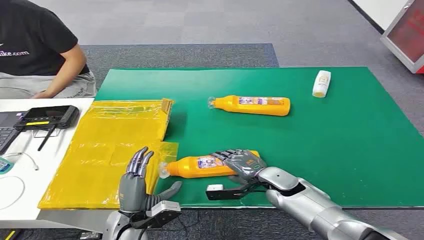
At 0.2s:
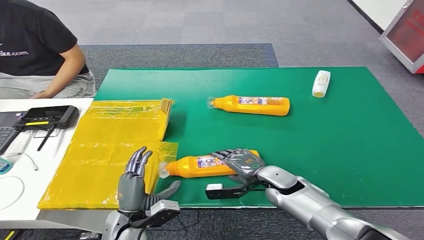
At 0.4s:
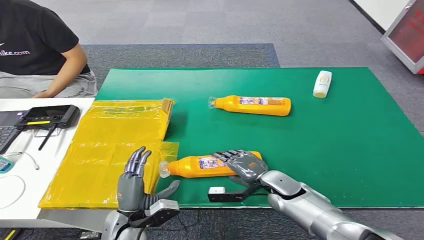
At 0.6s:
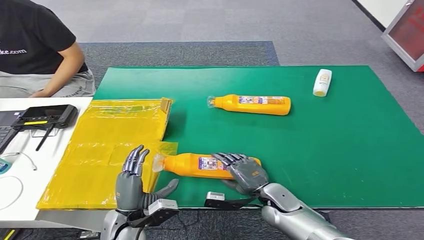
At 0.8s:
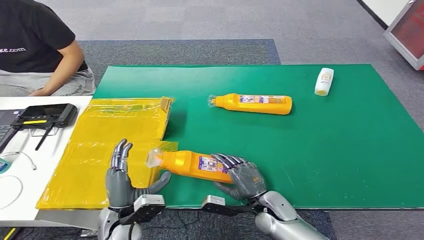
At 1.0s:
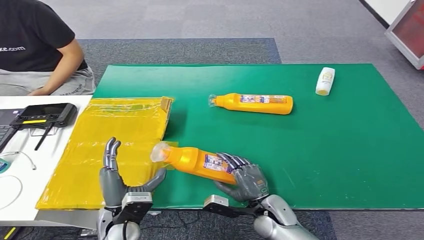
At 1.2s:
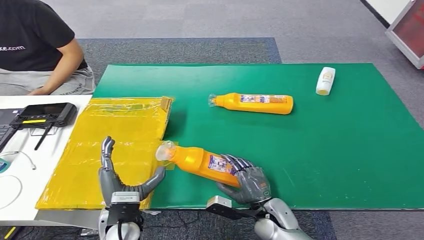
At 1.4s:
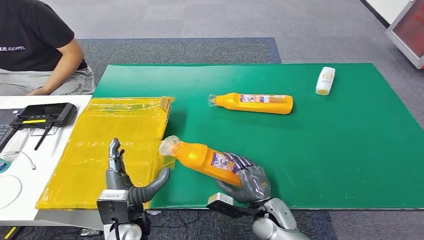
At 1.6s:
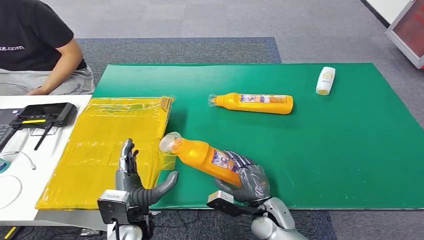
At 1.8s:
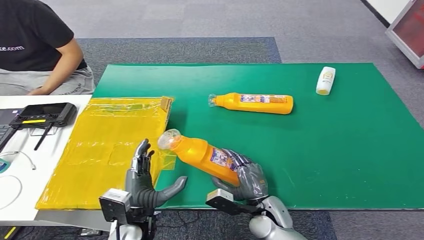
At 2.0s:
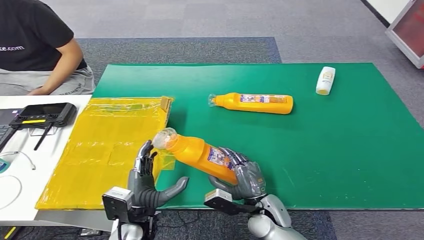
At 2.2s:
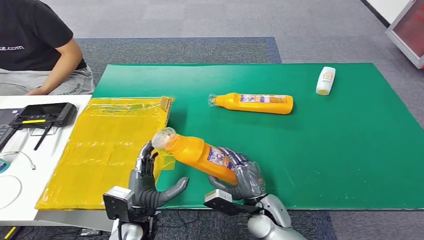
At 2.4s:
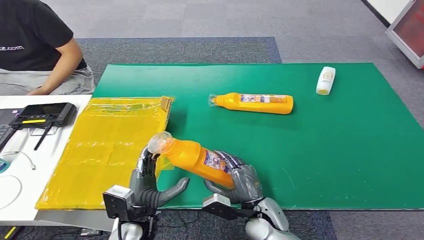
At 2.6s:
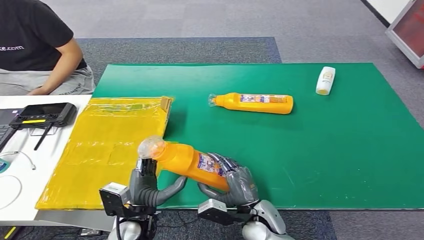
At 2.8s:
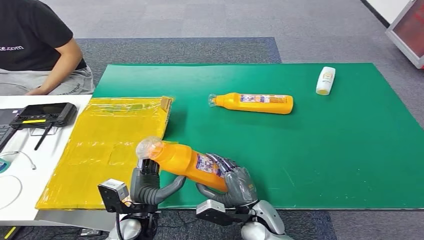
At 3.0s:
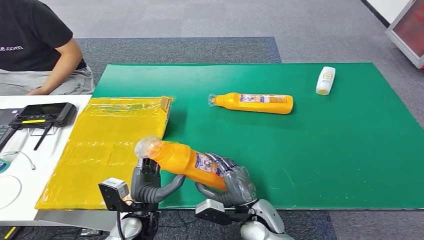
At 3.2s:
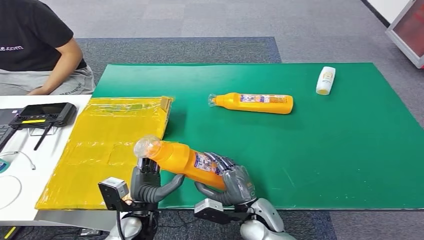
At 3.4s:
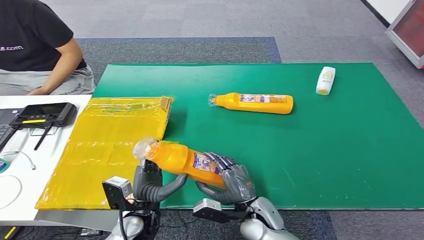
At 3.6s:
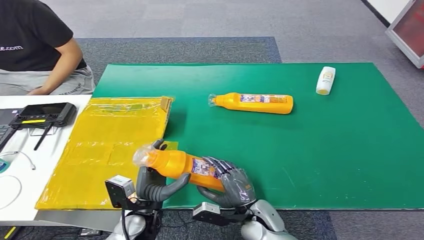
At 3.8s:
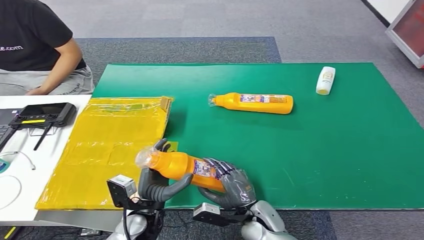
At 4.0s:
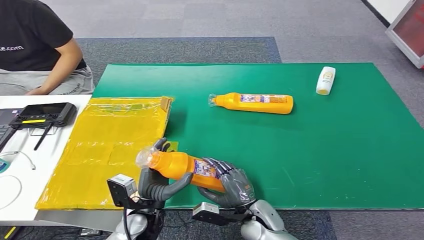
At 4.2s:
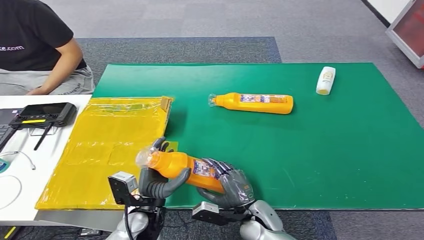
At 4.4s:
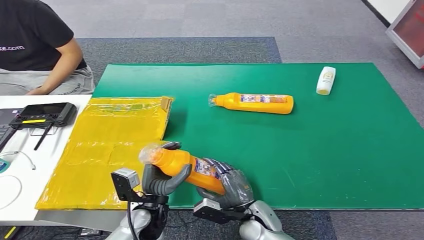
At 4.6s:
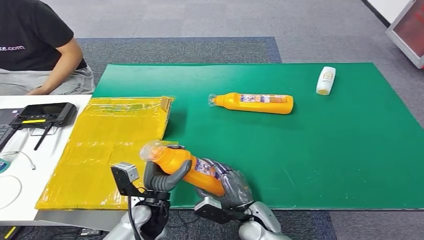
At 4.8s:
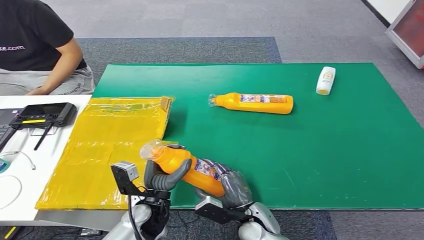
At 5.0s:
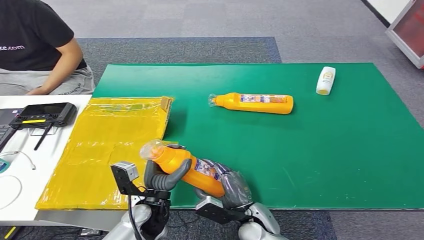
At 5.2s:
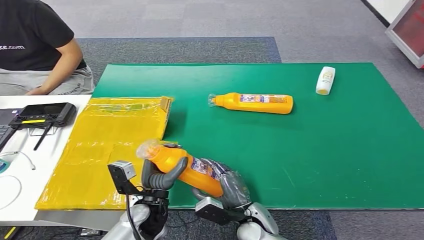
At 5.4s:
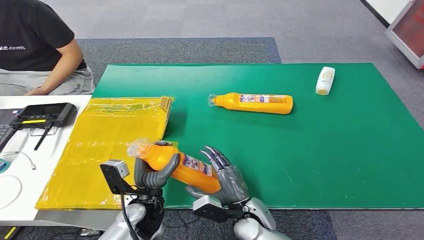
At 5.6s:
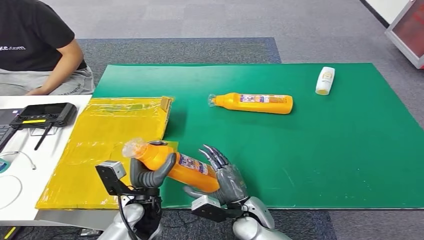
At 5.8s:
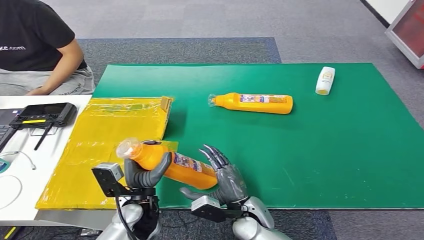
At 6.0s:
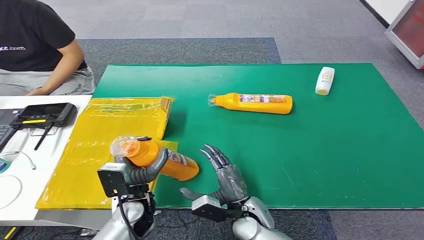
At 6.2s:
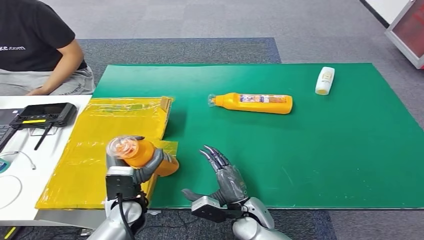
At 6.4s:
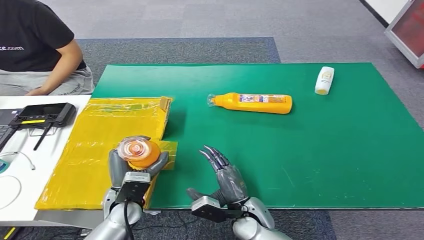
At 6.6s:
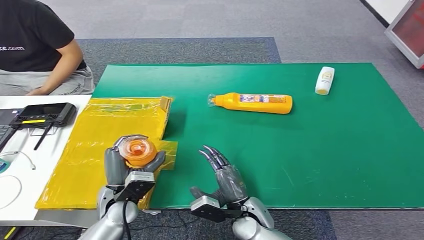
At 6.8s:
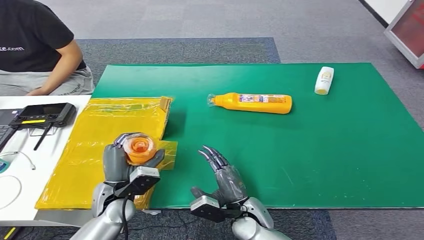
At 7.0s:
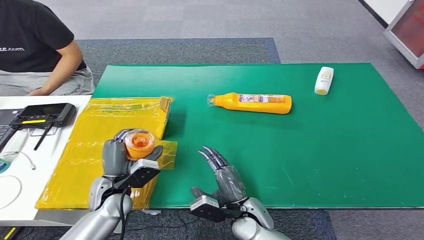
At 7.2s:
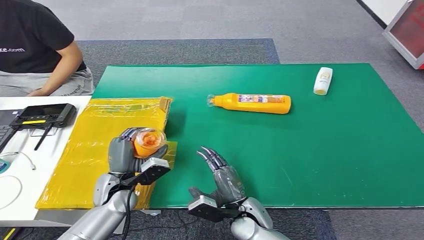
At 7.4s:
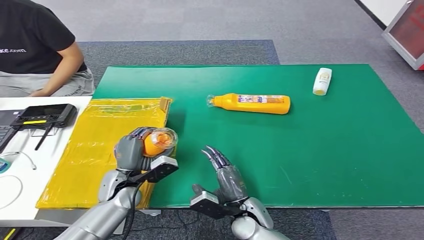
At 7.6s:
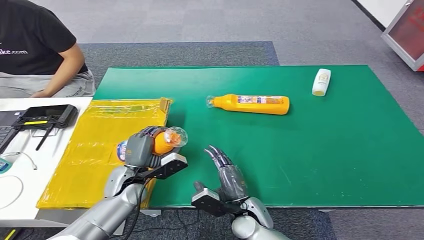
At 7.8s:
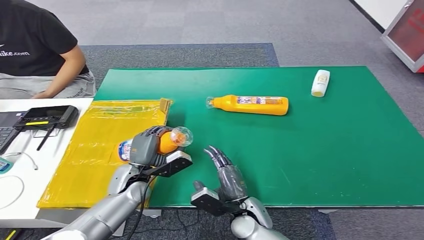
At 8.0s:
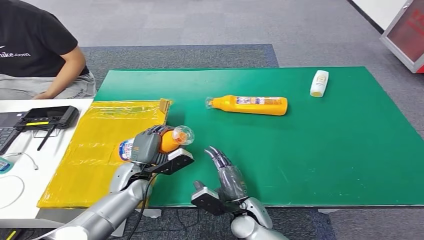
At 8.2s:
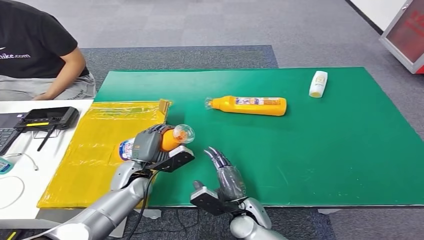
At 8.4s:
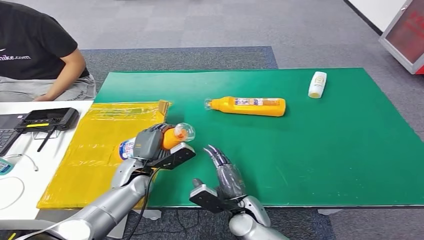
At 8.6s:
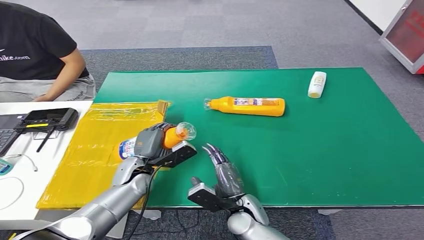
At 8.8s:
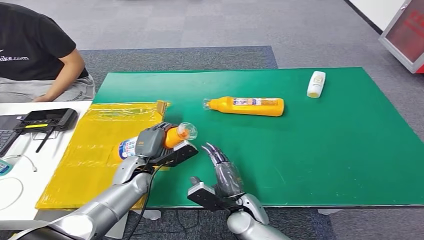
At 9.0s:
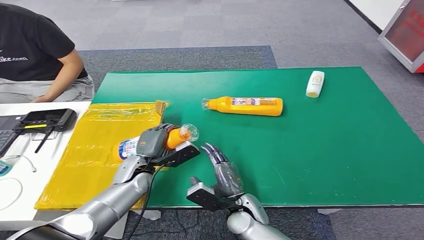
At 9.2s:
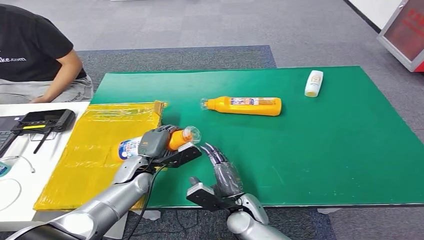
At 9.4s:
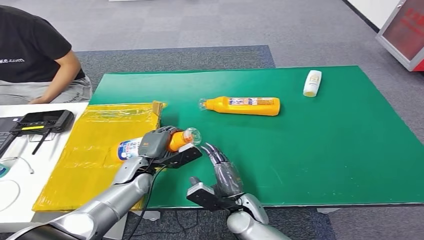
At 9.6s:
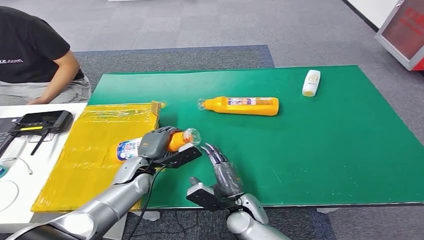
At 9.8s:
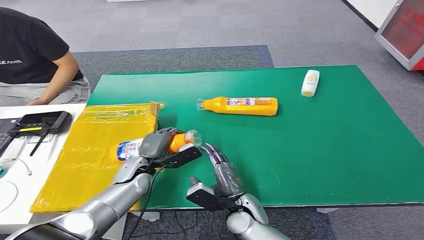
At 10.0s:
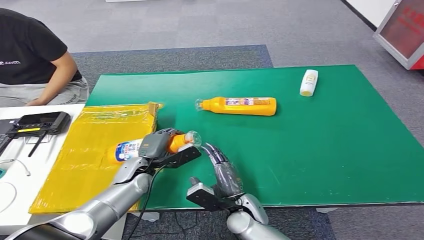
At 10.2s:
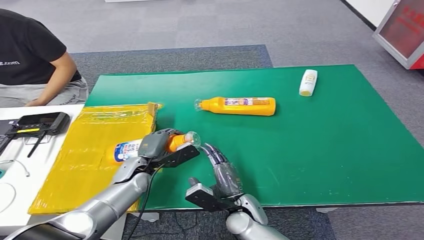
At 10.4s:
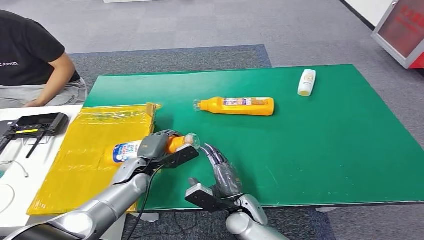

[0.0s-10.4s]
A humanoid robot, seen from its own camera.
Step, 0.0s to 1.6s: Pick up the bottle from the table.
3.0s to 4.4s: The hands move only a little.
6.0s to 7.4s: The left hand shifts approximately 10 cm to the left and forward.
9.0s to 10.4s: The hands make only small movements.

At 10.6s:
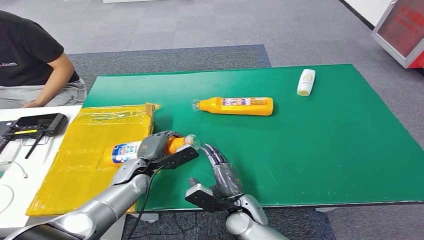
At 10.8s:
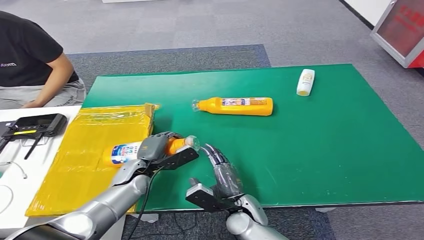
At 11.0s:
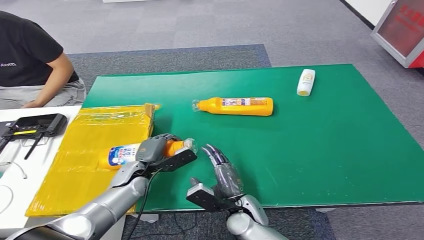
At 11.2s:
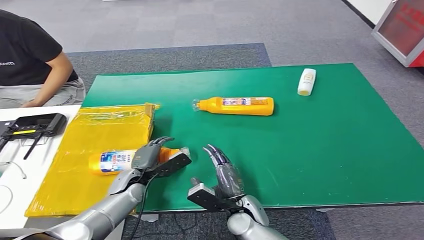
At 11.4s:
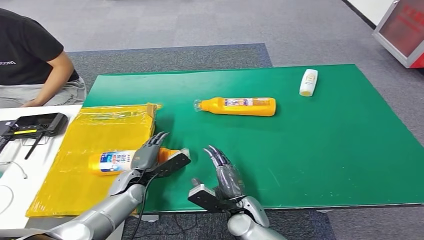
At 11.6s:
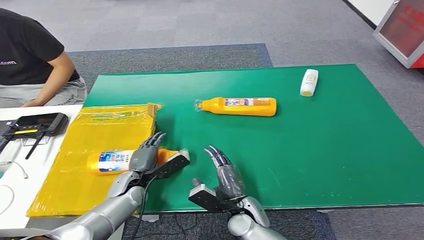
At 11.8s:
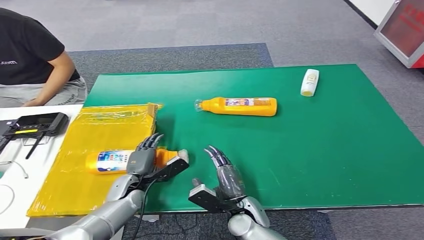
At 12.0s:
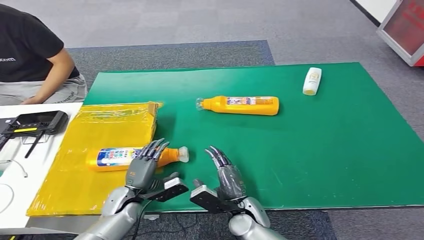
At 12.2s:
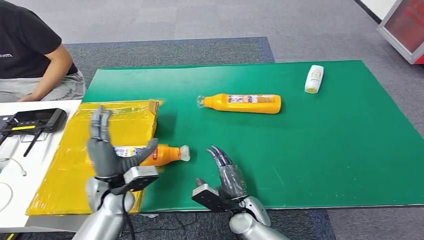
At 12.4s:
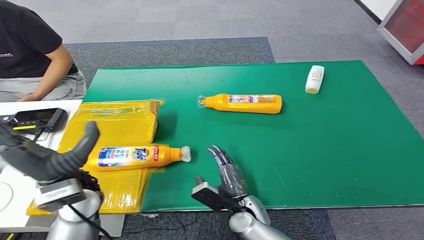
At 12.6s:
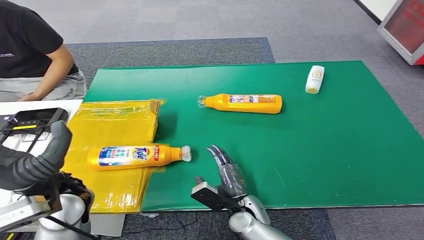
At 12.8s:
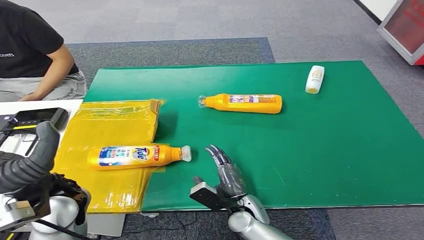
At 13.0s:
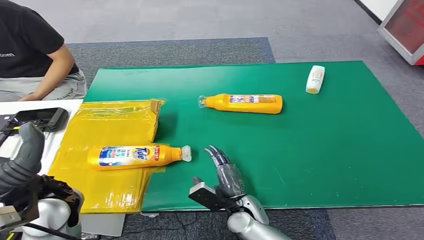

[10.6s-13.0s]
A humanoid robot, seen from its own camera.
Step, 10.6s to 12.8s: Turn the bottle to the front side.
10.6s to 11.8s: The left hand ends up roughly 5 cm from where it was.

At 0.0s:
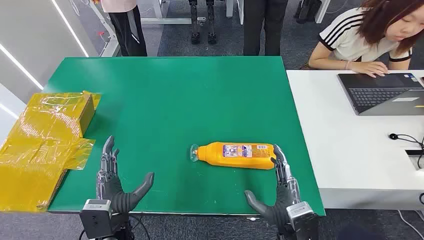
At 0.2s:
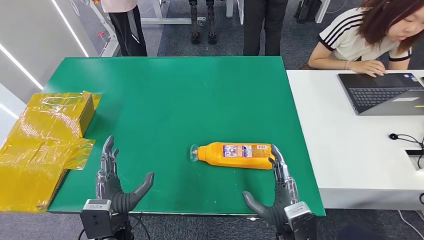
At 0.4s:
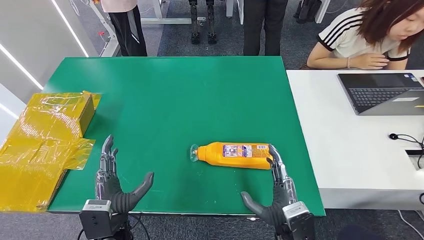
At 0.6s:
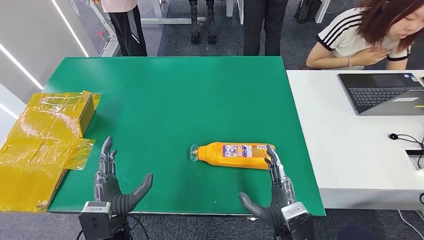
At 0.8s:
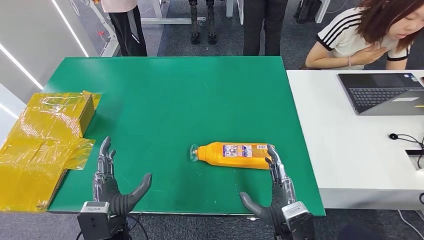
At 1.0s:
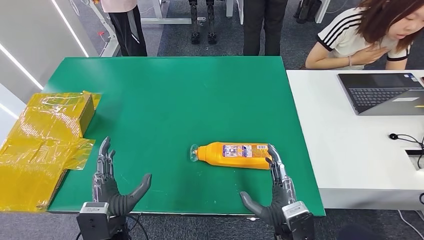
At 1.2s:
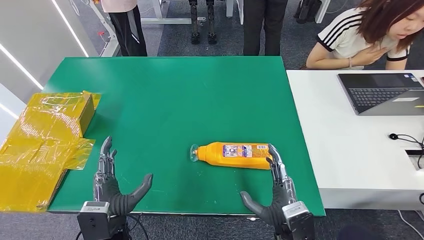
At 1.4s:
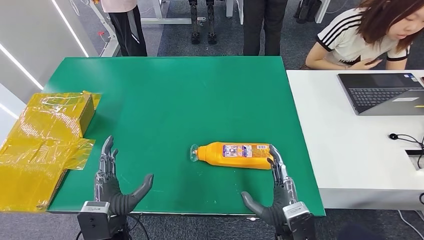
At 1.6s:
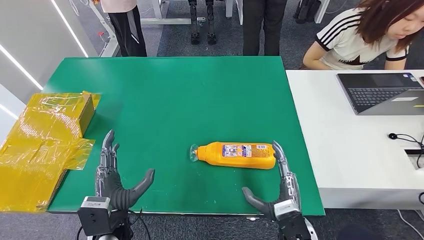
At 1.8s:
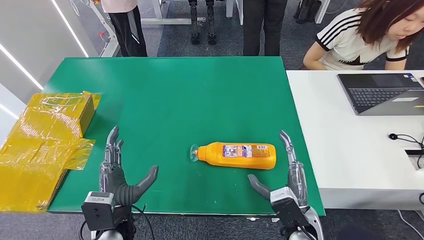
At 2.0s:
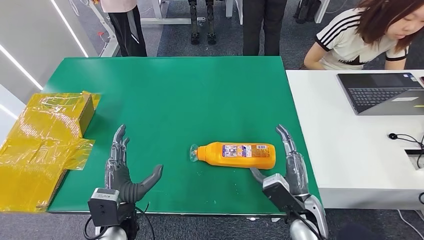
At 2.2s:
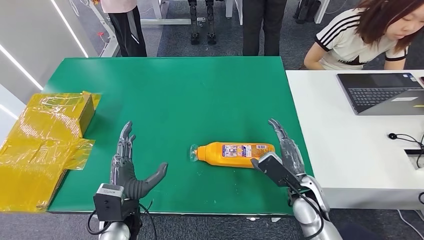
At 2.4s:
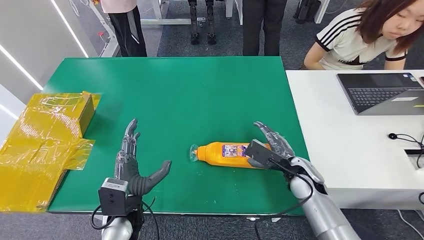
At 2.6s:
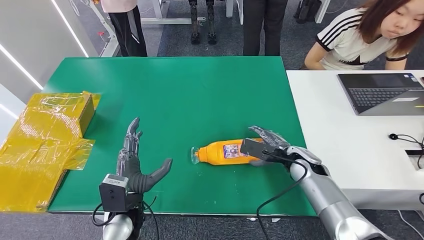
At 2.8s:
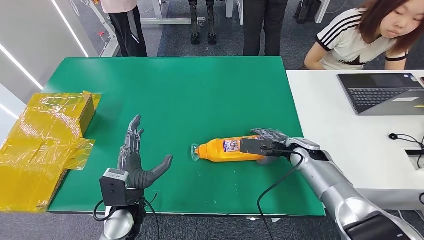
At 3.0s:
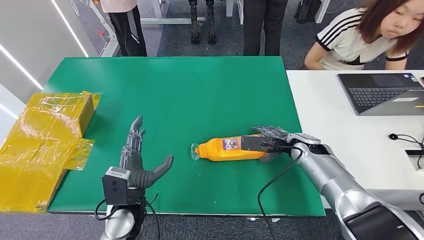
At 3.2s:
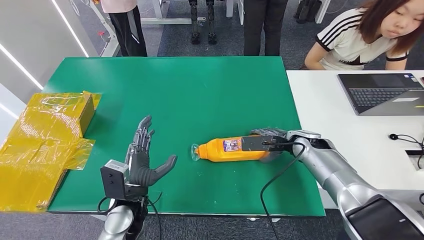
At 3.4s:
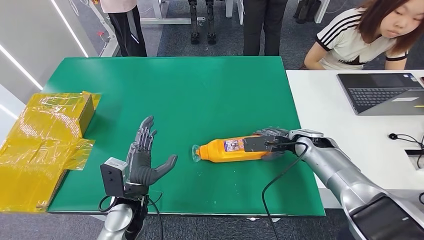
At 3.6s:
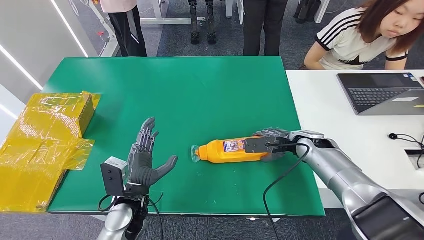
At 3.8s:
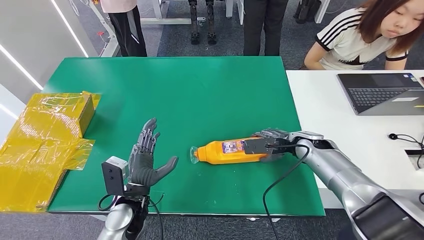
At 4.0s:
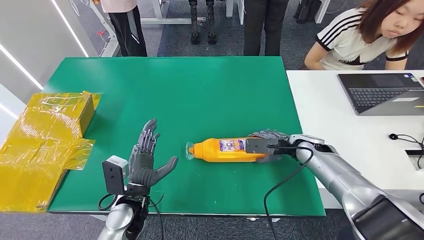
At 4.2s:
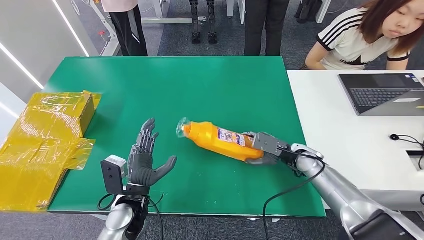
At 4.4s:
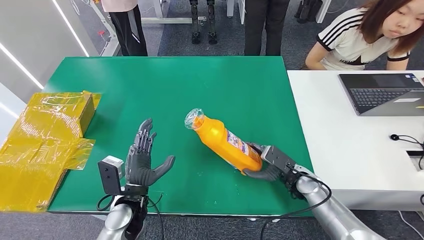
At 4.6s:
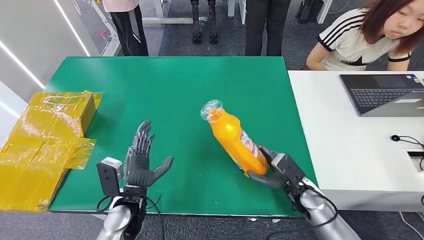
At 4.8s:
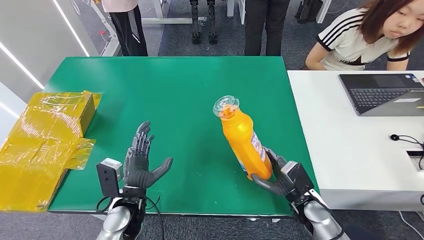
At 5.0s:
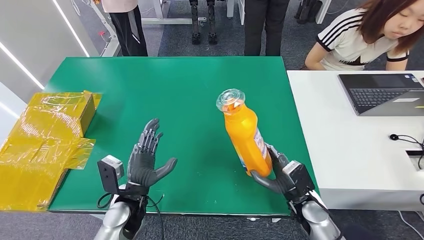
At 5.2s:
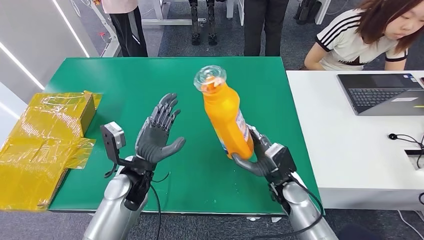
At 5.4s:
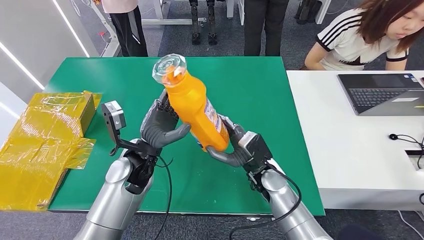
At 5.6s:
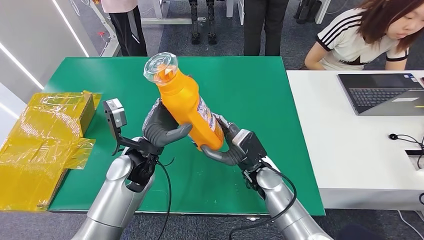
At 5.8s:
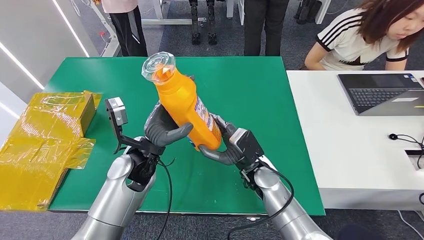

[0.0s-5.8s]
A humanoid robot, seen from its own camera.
Step, 0.0s to 4.6s: Pick up the bottle from the table.
1.4s to 2.8s: The right hand shifts approximately 25 cm forward. The left hand is displaced forward by approximately 5 cm.
2.8s to 4.4s: The right hand is displaced downward and backward by about 10 cm.
